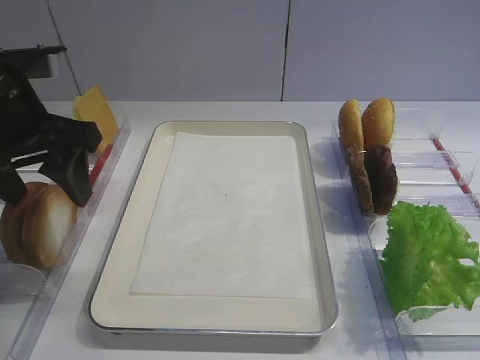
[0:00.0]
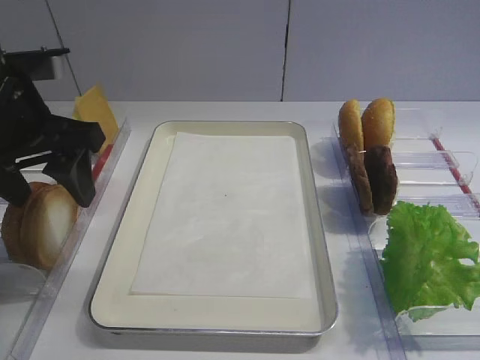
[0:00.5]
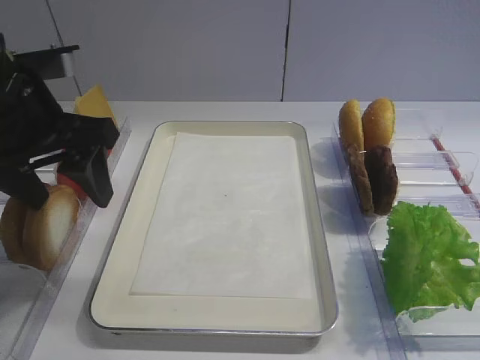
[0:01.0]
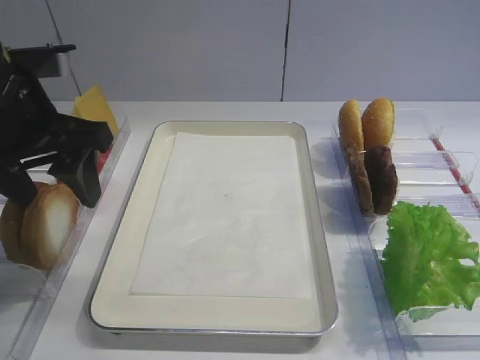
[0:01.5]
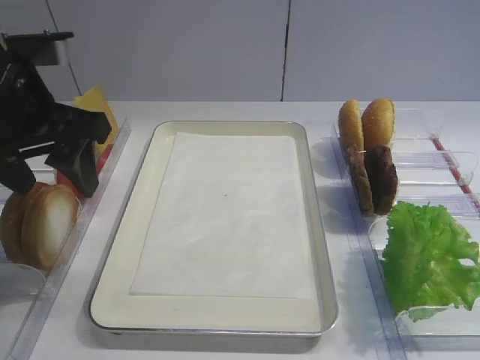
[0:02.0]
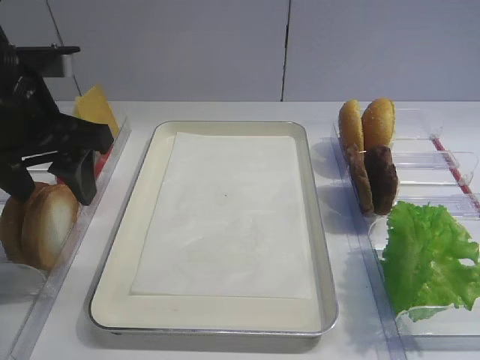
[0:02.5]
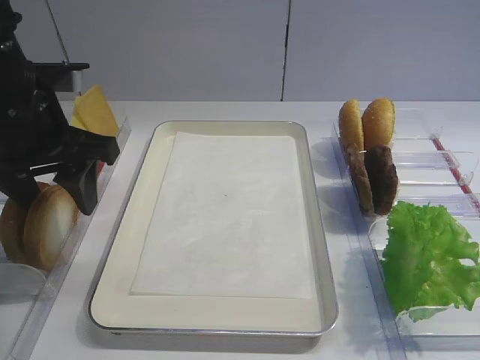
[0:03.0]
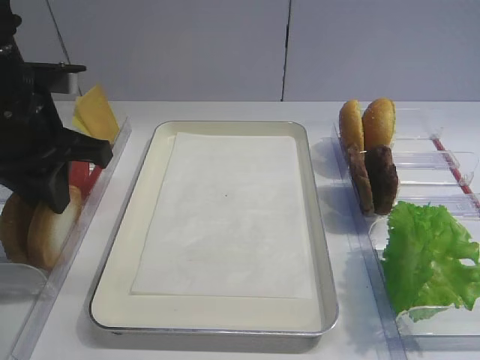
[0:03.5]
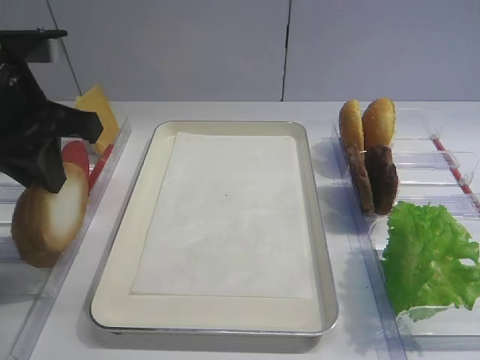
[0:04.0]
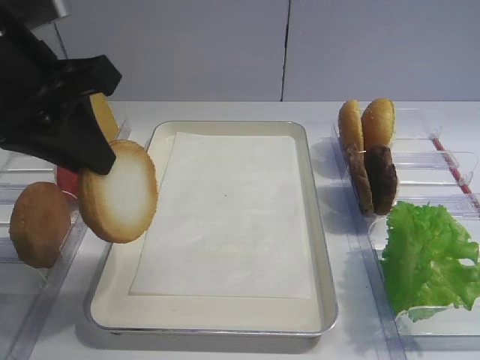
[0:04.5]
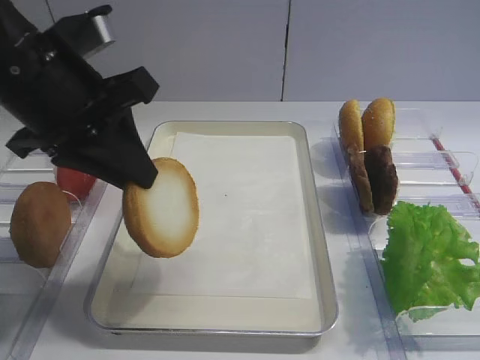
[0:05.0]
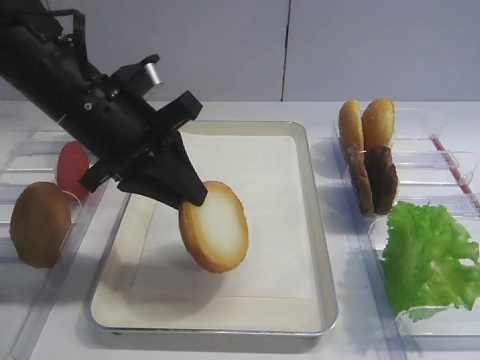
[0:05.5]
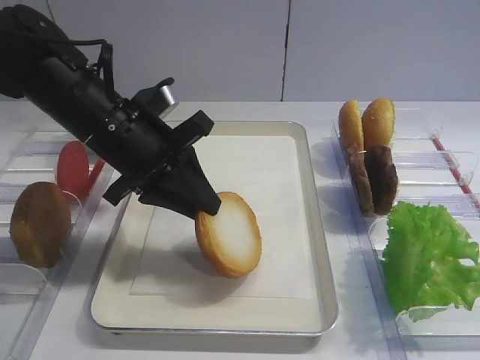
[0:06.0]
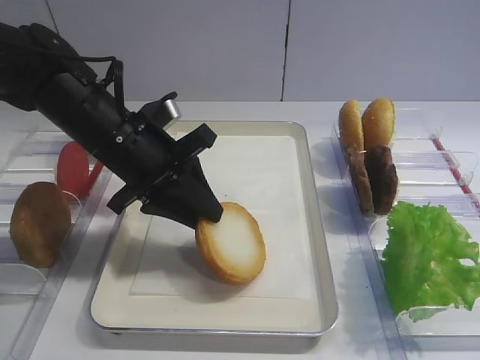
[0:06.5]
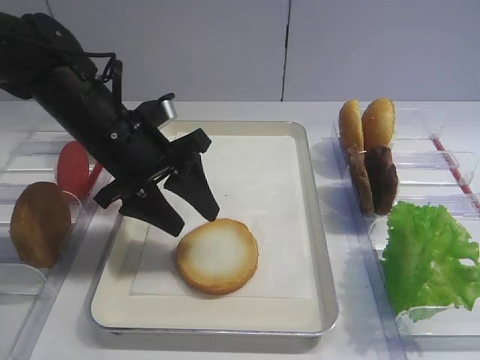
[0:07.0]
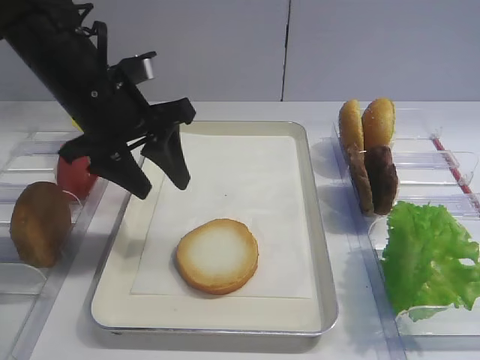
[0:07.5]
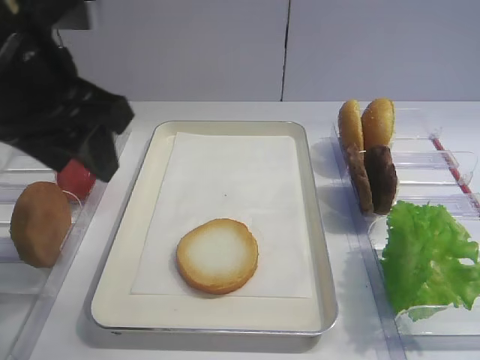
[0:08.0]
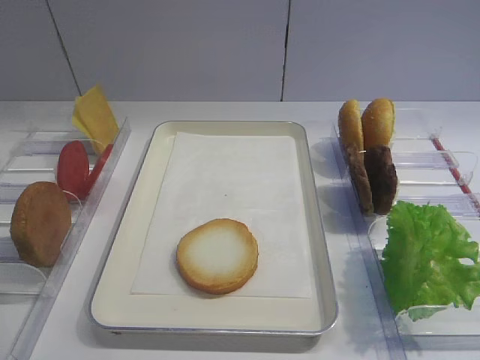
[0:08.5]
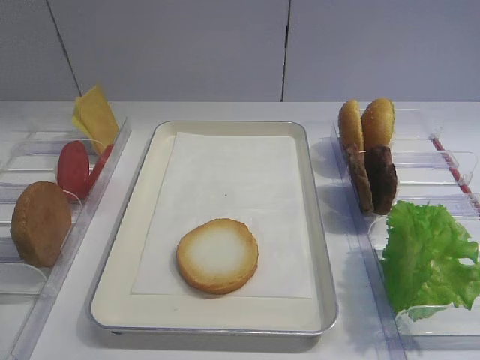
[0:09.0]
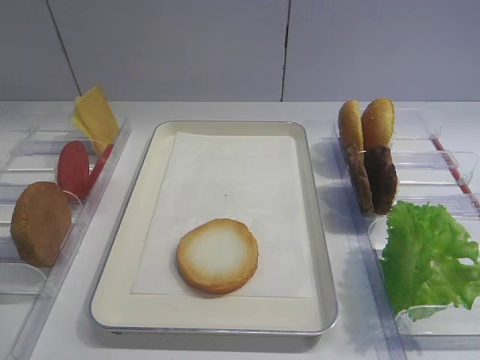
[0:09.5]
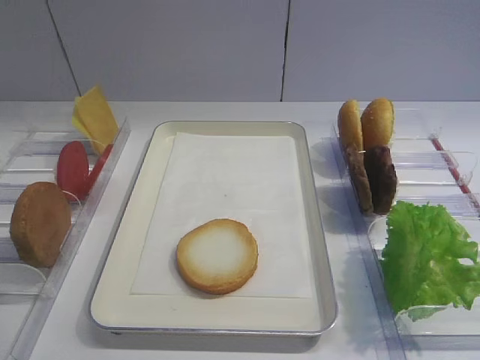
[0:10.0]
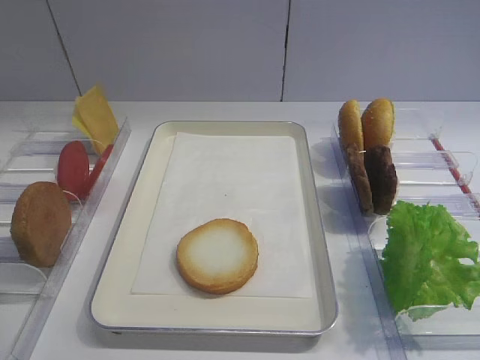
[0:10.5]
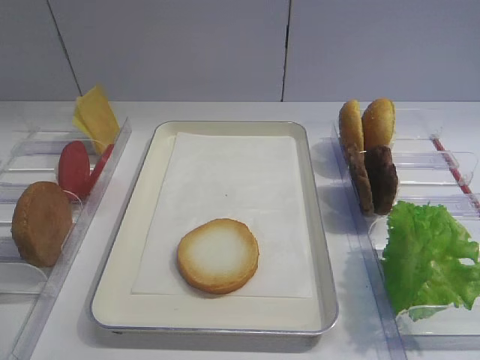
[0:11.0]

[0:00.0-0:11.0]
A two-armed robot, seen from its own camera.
Step, 0:00.0 to 0:04.0: Pick up the bread slice with the left gripper.
Step, 0:04.5 to 0:07.0: Place the bread slice on the tray with the left gripper.
0:00.0 to 0:02.0: There are only small adjustments of the grippers.
0:02.0 to 0:03.5: The left gripper closes.
0:03.5 to 0:05.5: The left gripper moves to the right, roughly 5 cm, and goes upward and returns, approximately 5 cm each way.
0:05.5 to 0:07.5: The left gripper opens up.
0:07.5 to 0:09.0: The left gripper is displaced backward and to the left by approximately 35 cm.

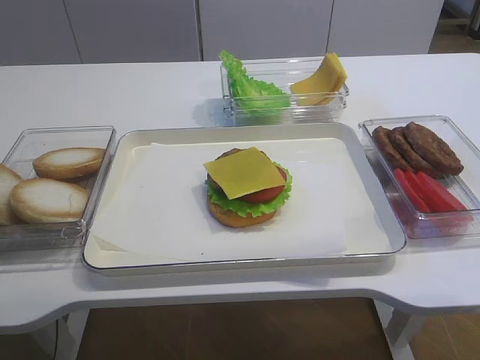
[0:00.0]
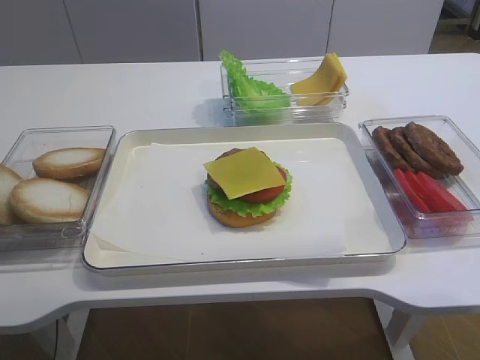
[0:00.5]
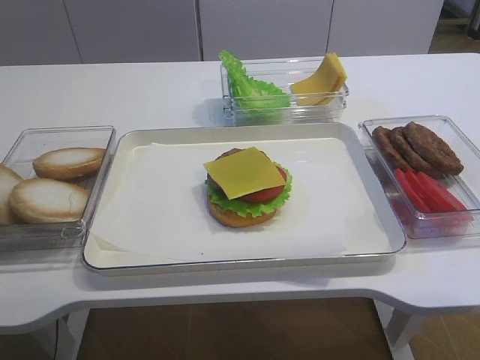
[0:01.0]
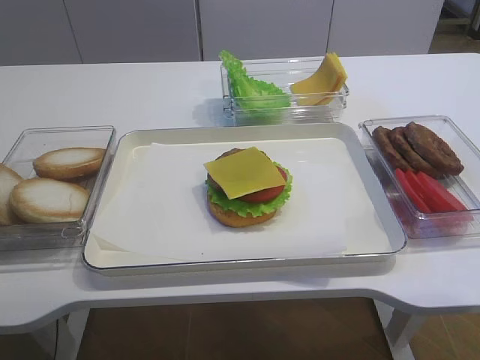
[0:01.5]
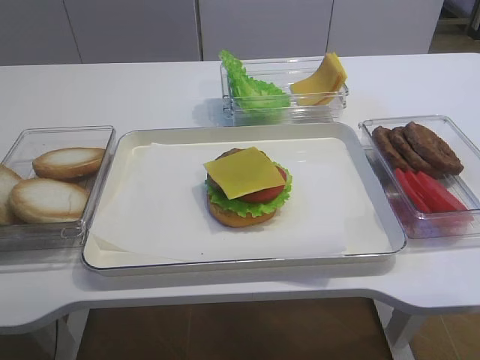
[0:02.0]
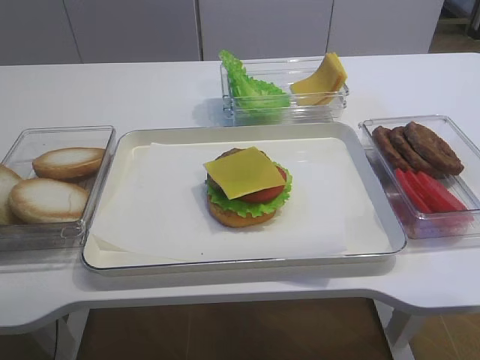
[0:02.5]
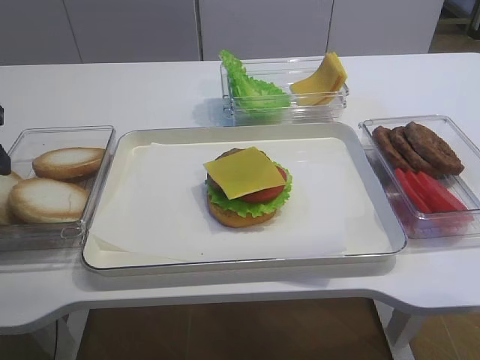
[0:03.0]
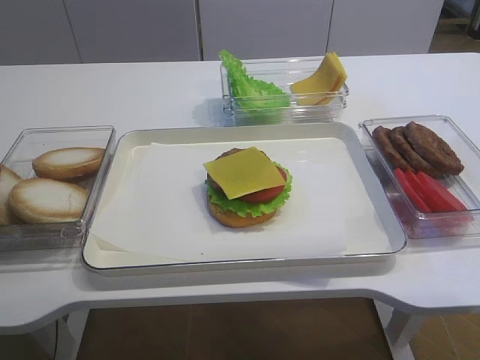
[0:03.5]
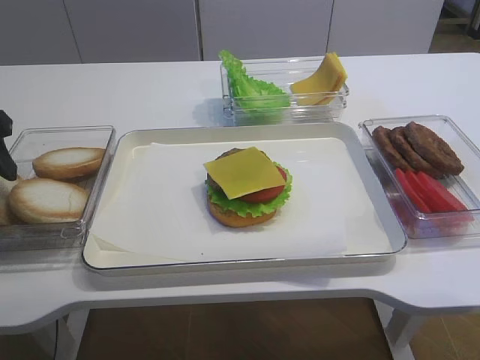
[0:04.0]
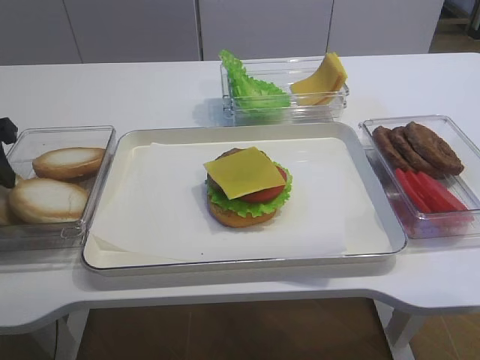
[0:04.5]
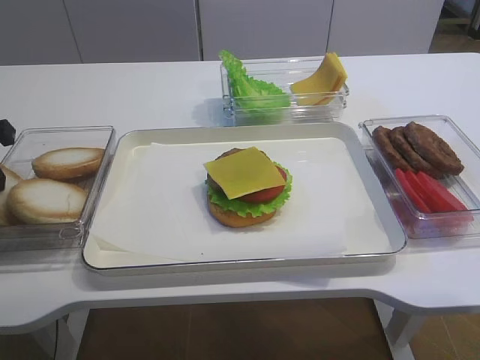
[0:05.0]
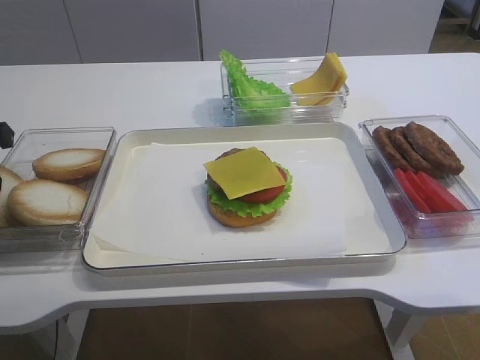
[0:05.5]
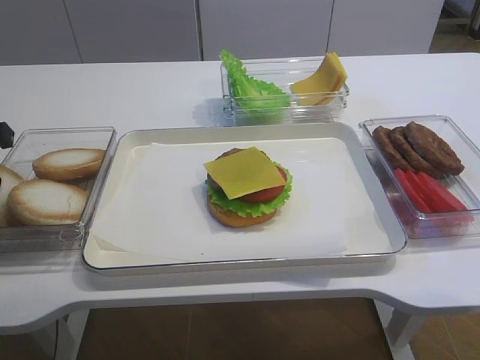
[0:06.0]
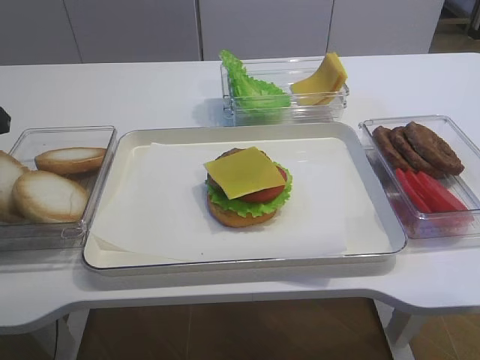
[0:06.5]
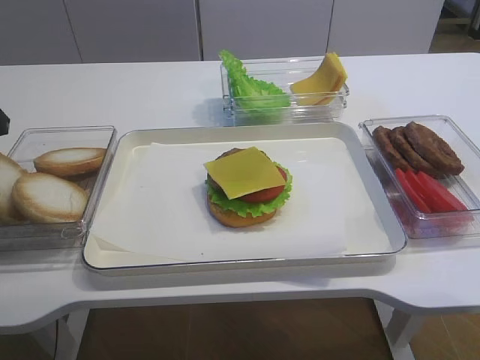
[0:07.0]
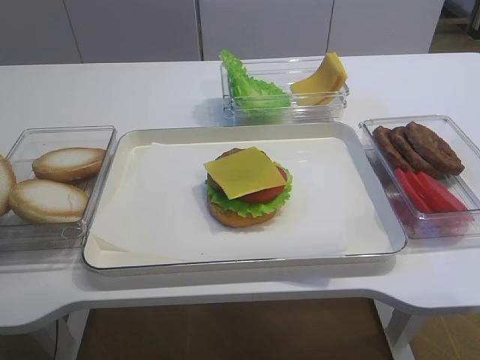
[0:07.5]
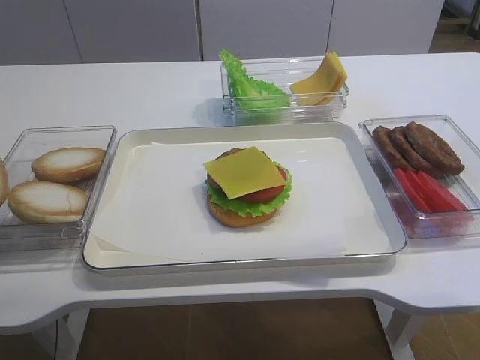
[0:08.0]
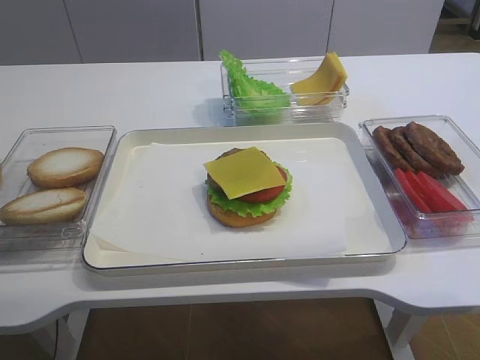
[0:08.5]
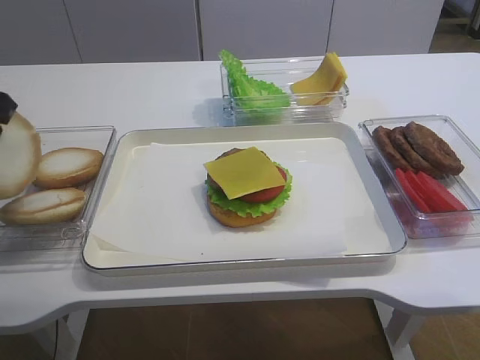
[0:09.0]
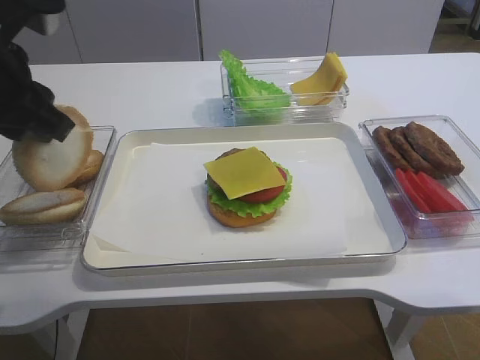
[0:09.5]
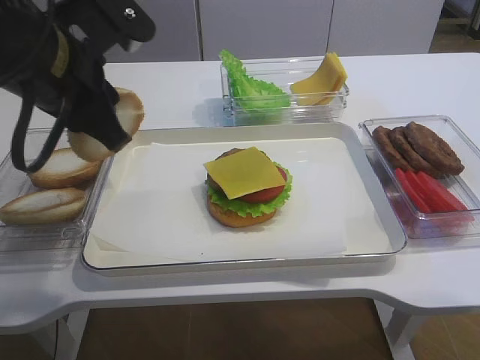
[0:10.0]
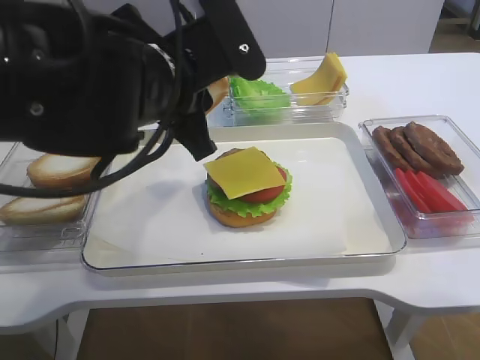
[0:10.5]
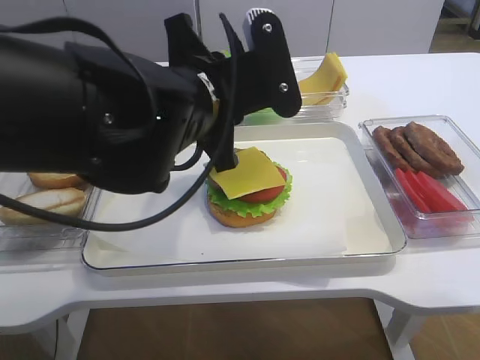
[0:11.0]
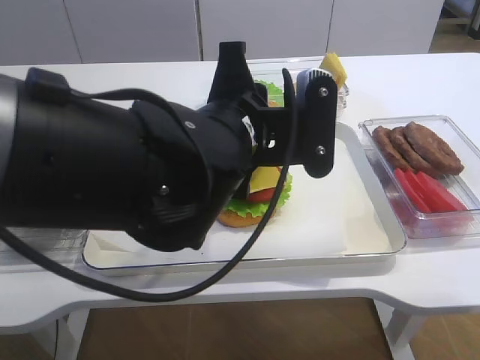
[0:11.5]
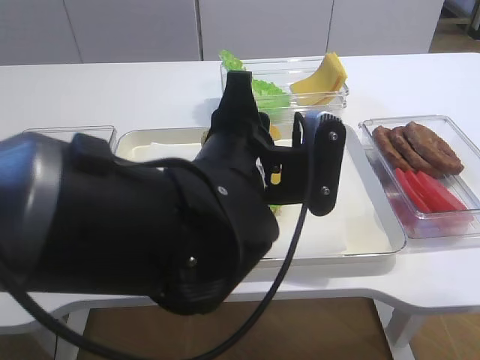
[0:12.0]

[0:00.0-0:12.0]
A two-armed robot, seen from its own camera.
Step, 0:00.0 to 0:08.5: Pick up the hamburger lid with the left gripper.
0:02.0 to 0:04.0: The left gripper moves forward, approximately 20 cm.
0:04.0 to 0:06.0: The left gripper closes.
0:06.0 to 0:08.0: The left gripper changes place by about 5 cm.
0:08.0 to 0:10.0: The left gripper shifts approximately 15 cm to the right.
0:10.0 to 0:12.0: The left gripper heads to the right and downward, covering approximately 15 cm.

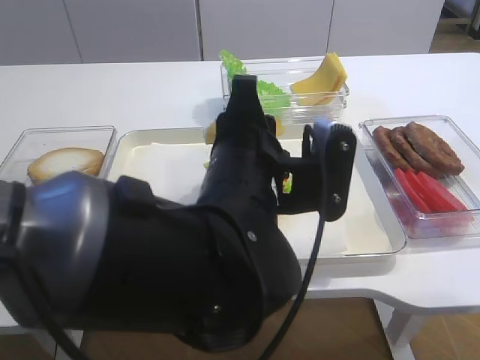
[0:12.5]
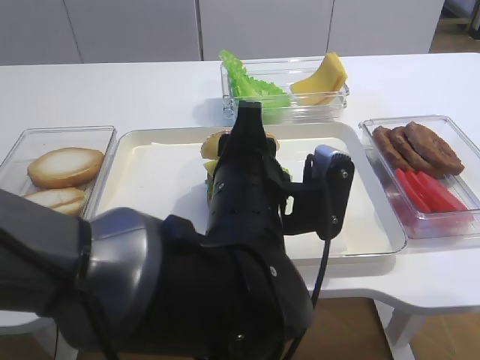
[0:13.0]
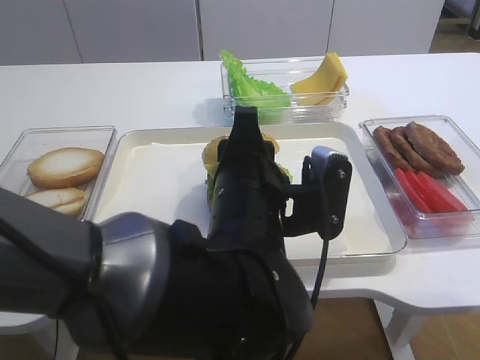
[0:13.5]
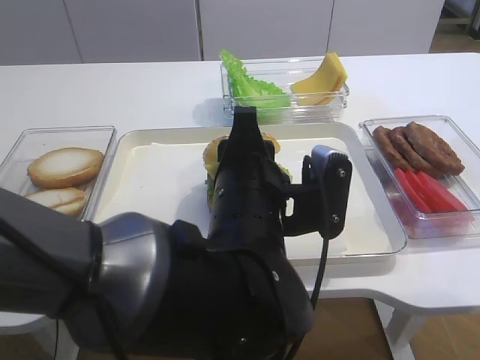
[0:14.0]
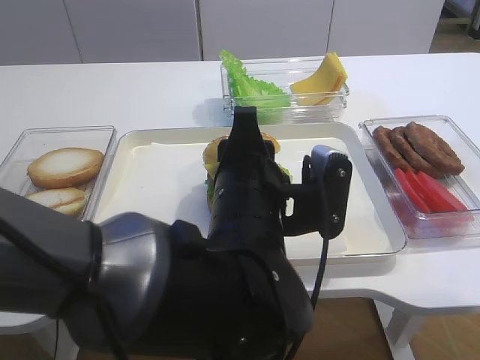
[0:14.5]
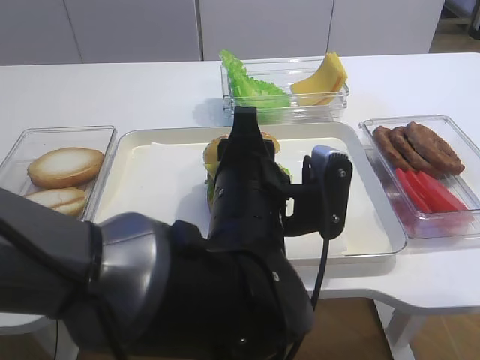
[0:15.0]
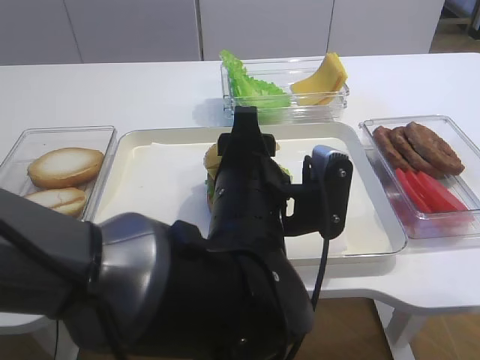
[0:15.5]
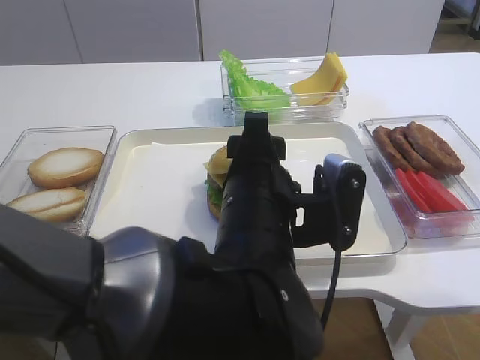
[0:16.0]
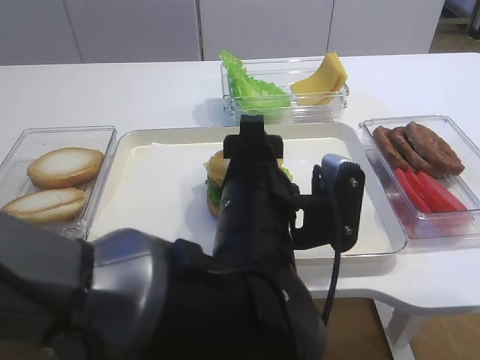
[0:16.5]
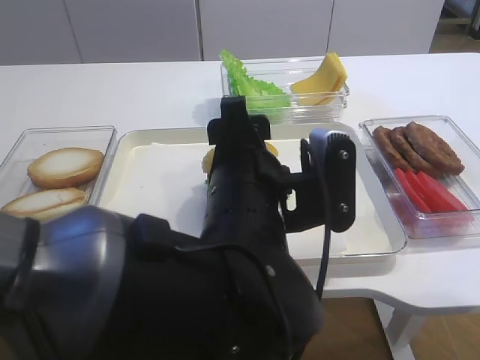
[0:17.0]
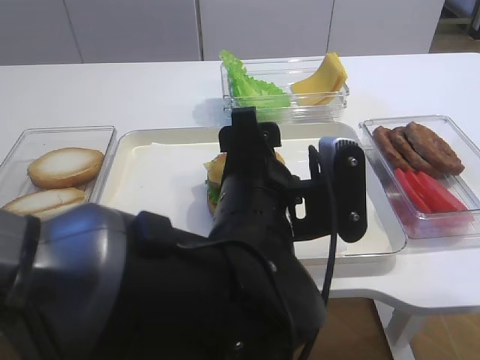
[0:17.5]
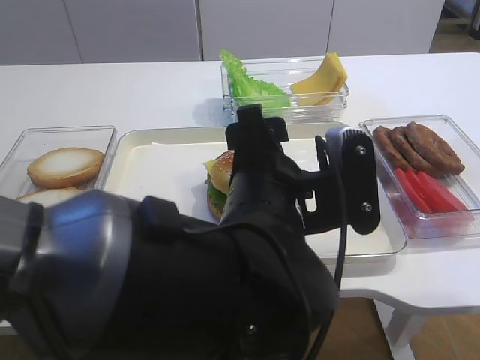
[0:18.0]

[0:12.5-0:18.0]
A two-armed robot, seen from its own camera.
0:12.5 to 0:14.5: The grippers move only a little.
0:14.5 to 0:16.0: The left gripper opens its fingers.
0:16.0 to 0:18.0: The left gripper opens.
